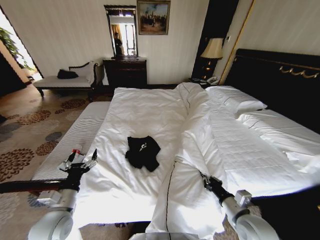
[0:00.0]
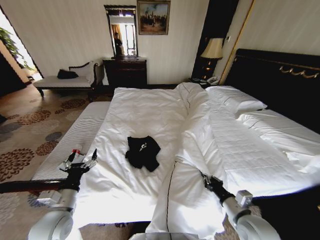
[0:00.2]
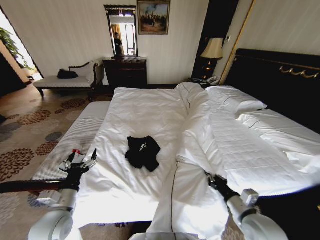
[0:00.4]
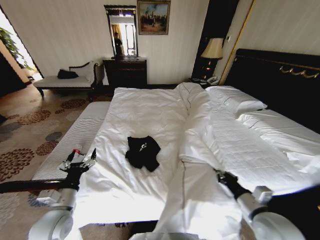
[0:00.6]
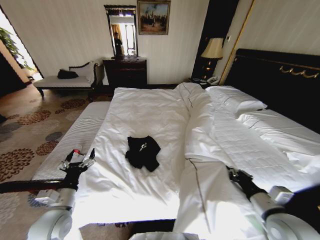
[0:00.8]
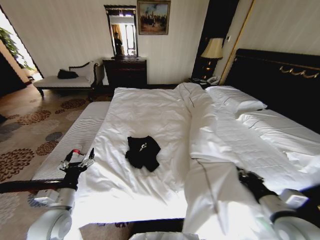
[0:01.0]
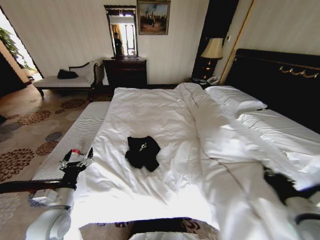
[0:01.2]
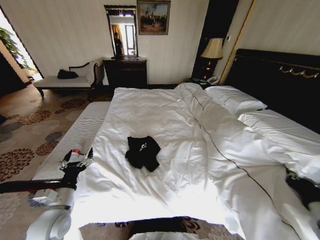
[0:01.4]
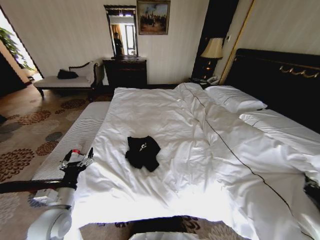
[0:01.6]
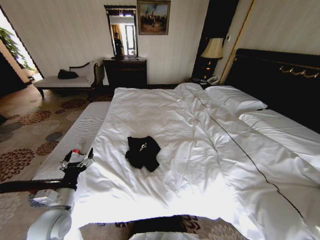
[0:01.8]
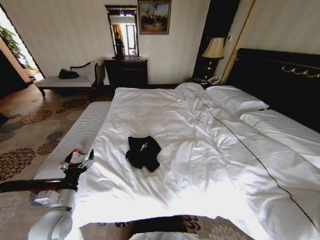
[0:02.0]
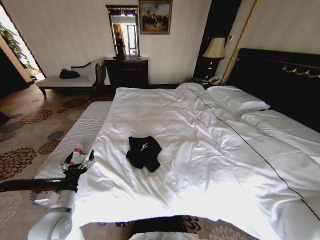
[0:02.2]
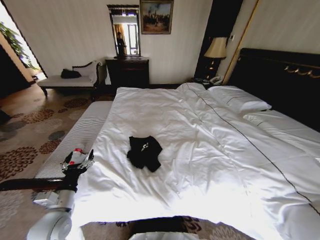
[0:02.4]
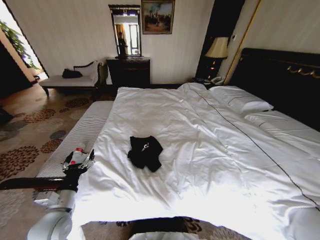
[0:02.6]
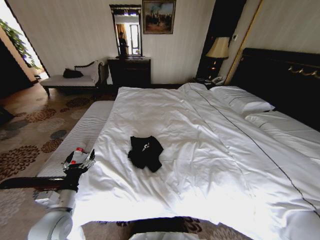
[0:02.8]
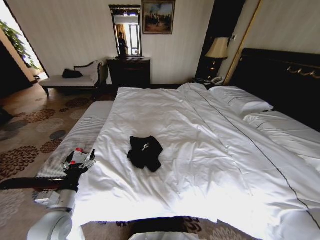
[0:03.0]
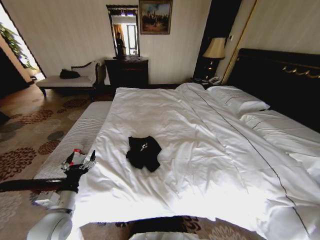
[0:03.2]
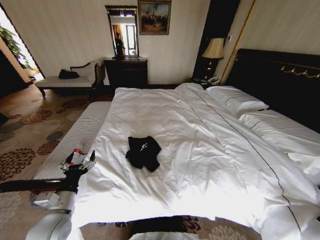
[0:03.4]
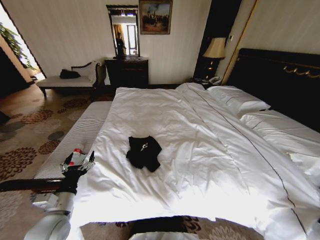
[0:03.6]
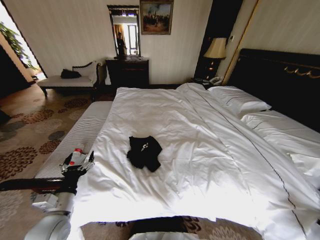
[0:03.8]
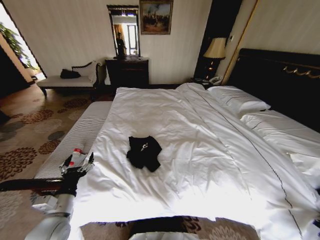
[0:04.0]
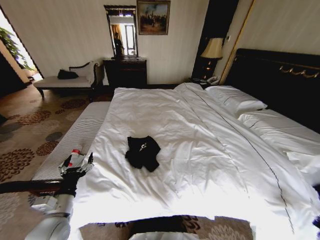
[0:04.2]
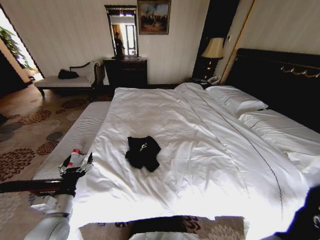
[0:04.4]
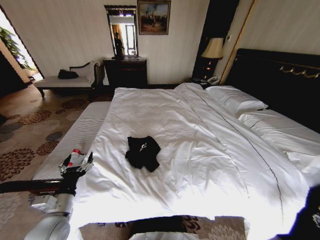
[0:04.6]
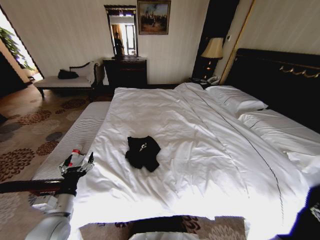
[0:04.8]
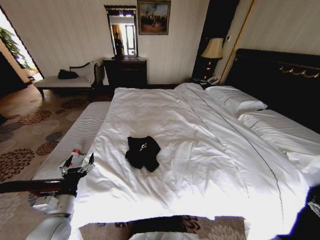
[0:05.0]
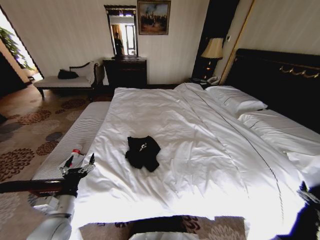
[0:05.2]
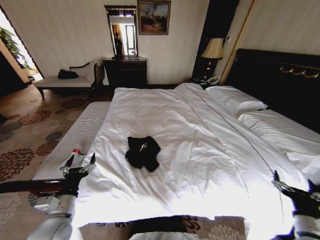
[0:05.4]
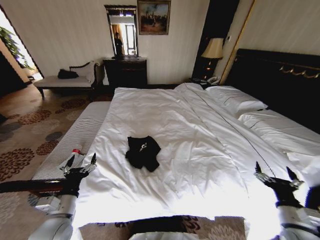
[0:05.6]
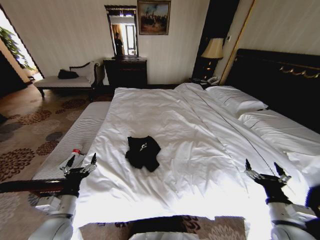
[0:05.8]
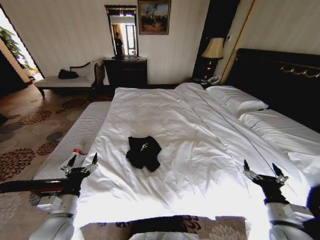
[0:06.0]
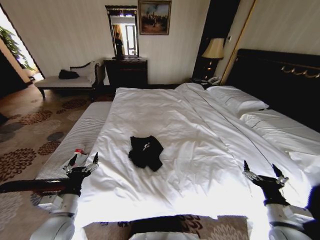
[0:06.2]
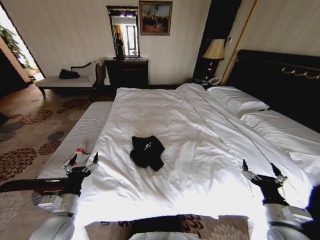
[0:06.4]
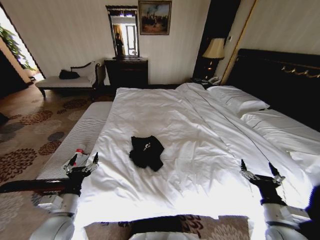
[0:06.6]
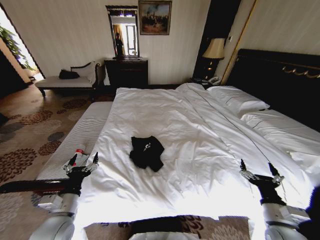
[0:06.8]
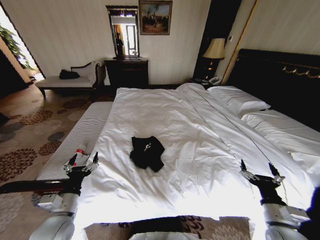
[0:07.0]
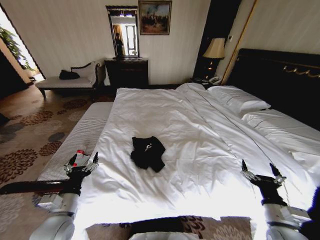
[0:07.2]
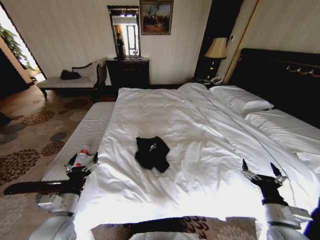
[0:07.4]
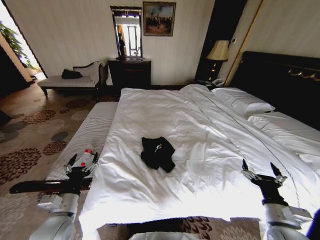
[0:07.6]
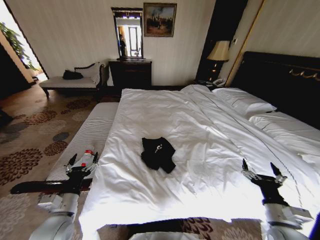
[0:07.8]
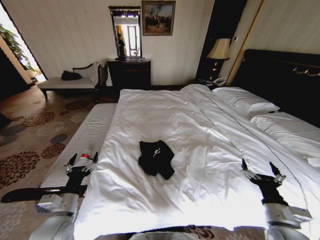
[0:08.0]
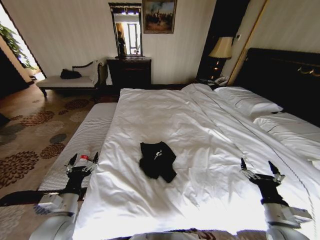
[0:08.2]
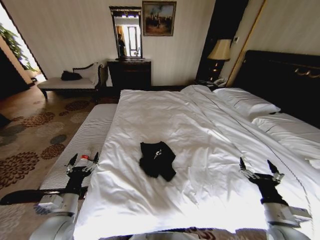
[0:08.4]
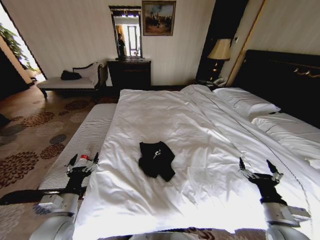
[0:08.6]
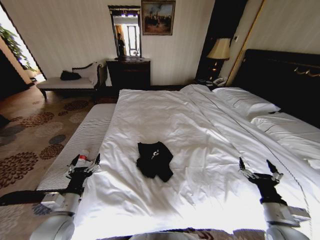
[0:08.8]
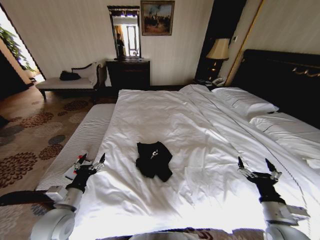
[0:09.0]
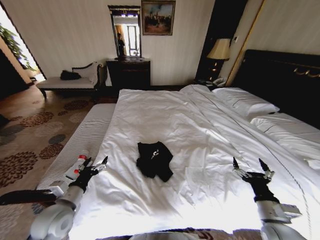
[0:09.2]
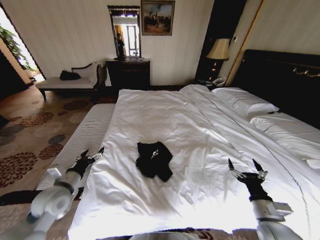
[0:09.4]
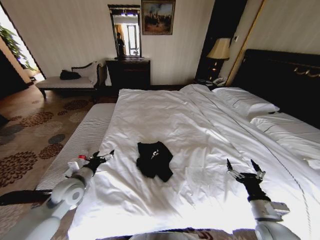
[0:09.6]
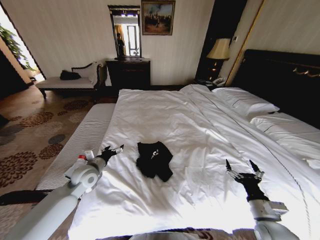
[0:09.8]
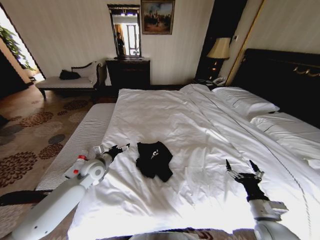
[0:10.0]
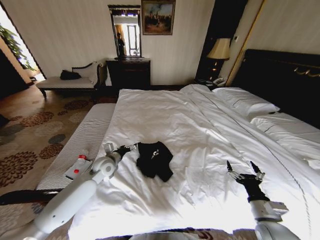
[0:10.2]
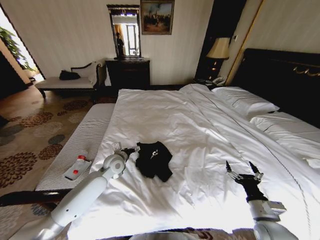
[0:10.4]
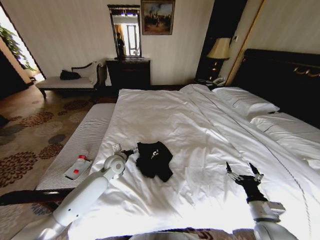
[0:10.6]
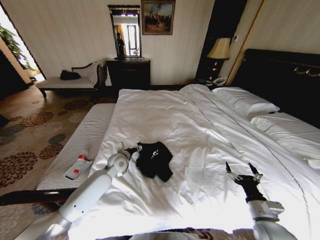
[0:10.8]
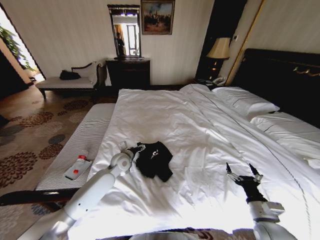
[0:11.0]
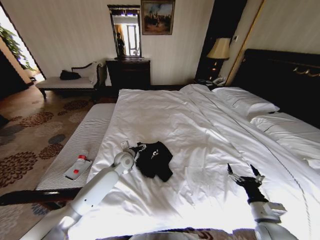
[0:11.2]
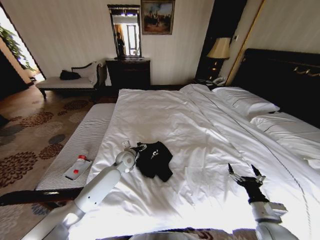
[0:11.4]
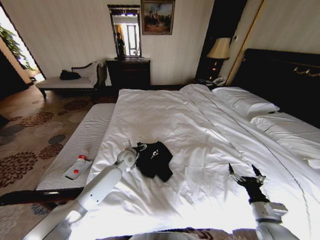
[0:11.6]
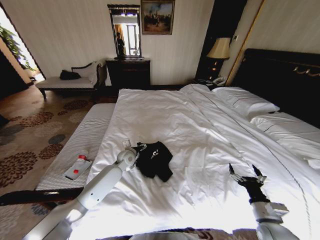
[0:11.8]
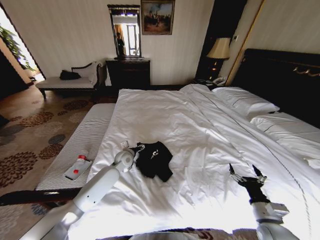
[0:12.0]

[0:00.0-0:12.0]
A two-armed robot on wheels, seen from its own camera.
Task of the whole recording: Fold the clothes on the bed.
0:00.0 to 0:01.6: The right gripper travels to the right by approximately 20 cm.
0:01.6 to 0:03.0: The right gripper moves to the right and downward, some 20 cm.
0:03.0 to 0:04.4: The right gripper travels downward by about 10 cm, and opens up.
0:04.4 to 0:06.0: The right gripper moves to the left and upward, roughly 35 cm, and opens up.
0:09.0 to 0:10.4: The left gripper goes roughly 25 cm forward and to the right.
0:10.4 to 0:12.0: The left gripper travels forward by some 5 cm.

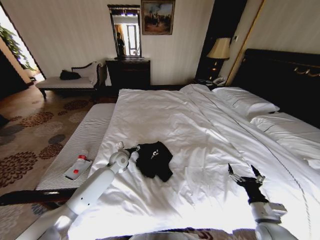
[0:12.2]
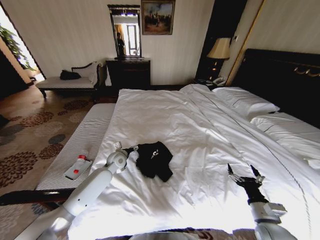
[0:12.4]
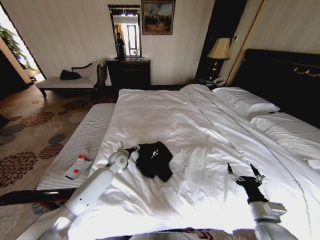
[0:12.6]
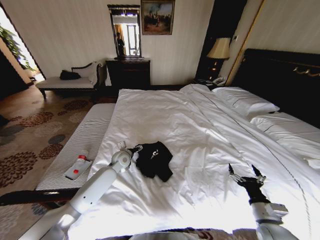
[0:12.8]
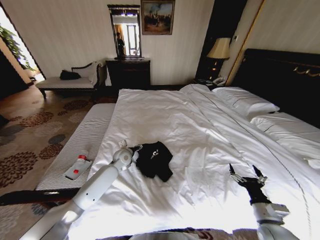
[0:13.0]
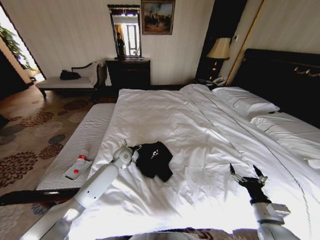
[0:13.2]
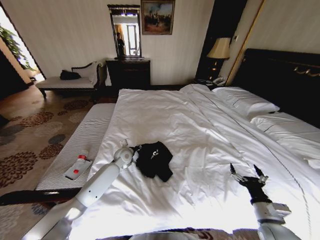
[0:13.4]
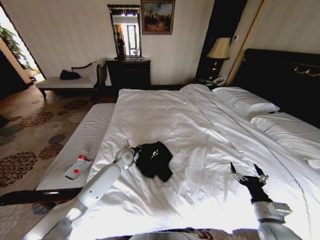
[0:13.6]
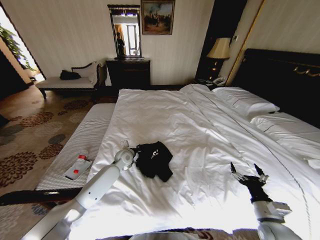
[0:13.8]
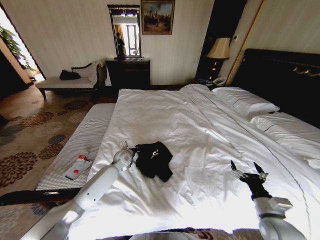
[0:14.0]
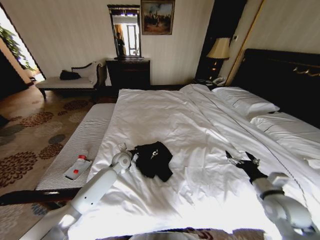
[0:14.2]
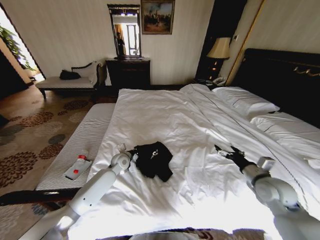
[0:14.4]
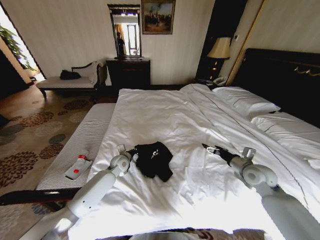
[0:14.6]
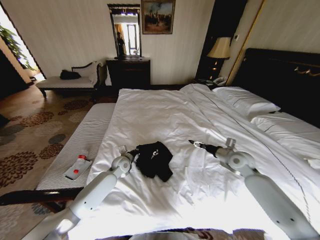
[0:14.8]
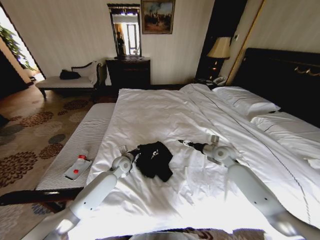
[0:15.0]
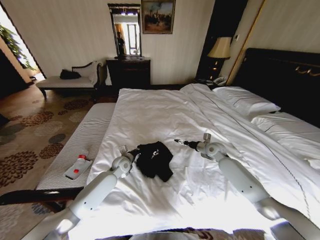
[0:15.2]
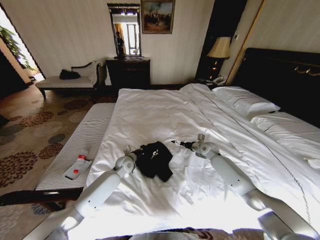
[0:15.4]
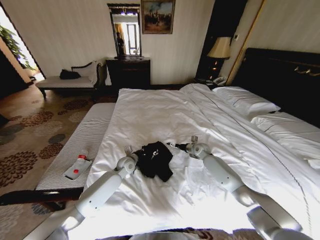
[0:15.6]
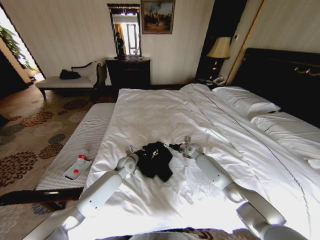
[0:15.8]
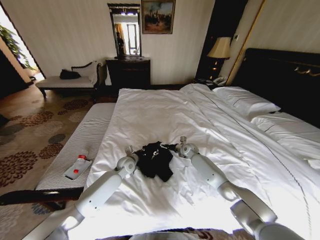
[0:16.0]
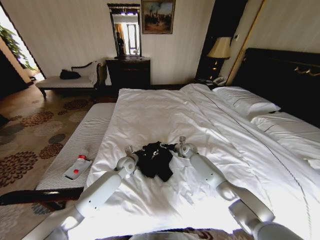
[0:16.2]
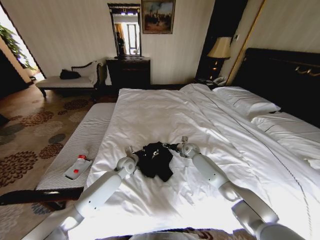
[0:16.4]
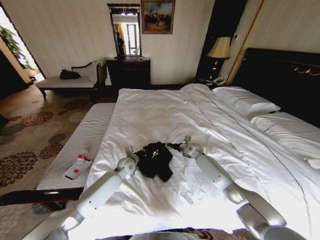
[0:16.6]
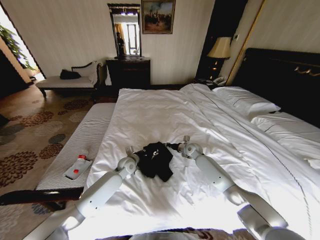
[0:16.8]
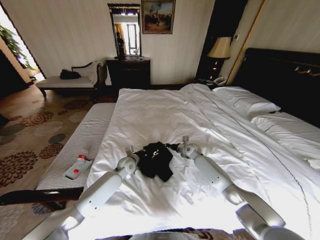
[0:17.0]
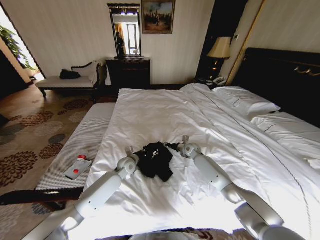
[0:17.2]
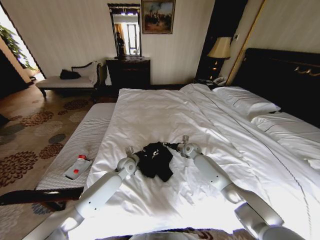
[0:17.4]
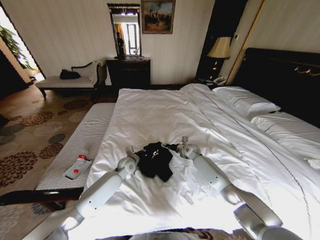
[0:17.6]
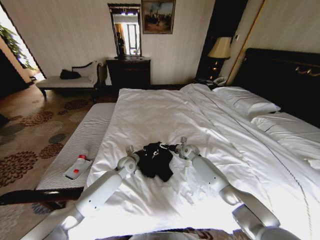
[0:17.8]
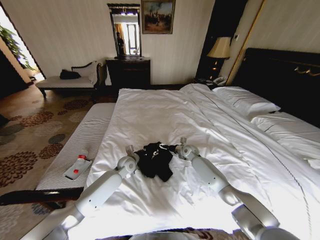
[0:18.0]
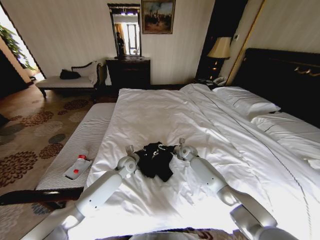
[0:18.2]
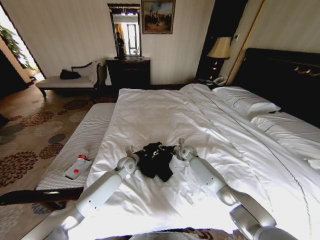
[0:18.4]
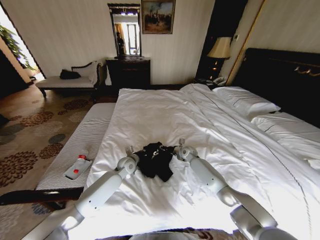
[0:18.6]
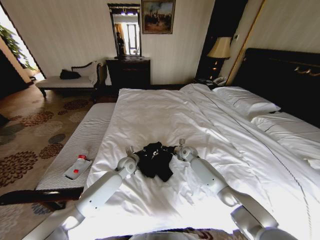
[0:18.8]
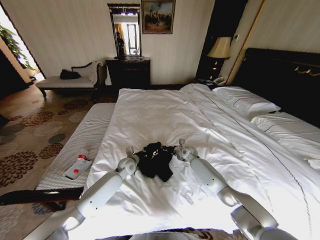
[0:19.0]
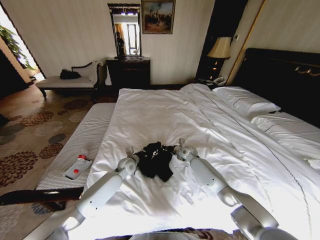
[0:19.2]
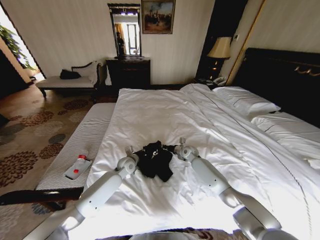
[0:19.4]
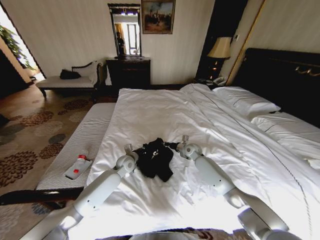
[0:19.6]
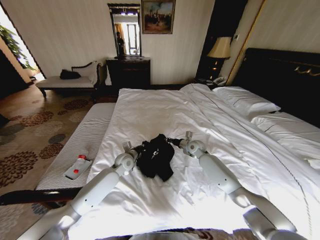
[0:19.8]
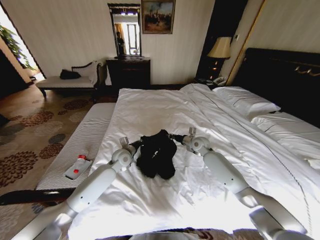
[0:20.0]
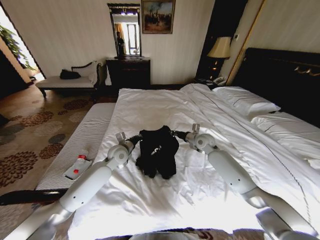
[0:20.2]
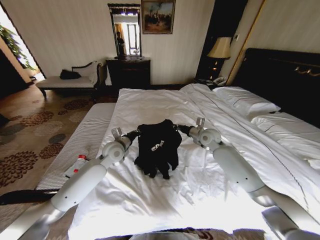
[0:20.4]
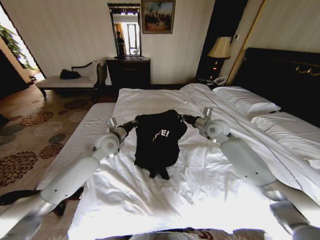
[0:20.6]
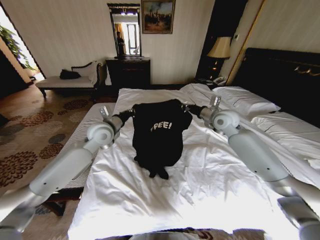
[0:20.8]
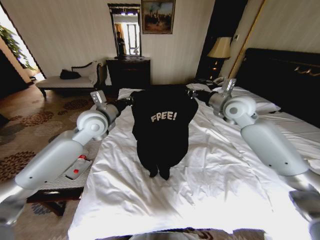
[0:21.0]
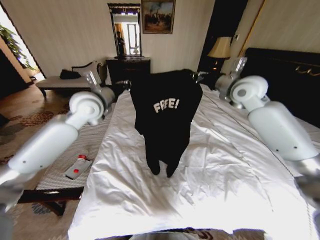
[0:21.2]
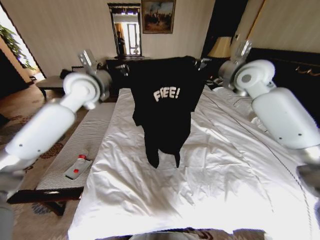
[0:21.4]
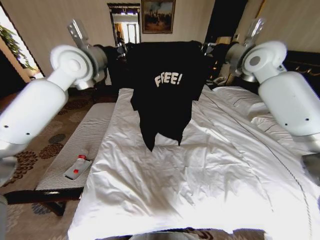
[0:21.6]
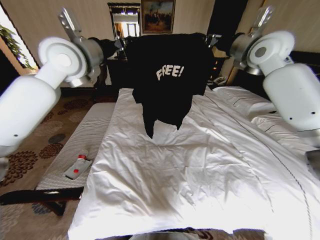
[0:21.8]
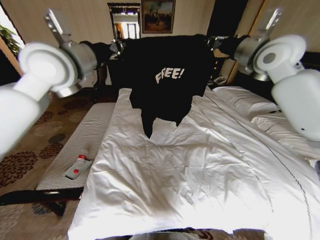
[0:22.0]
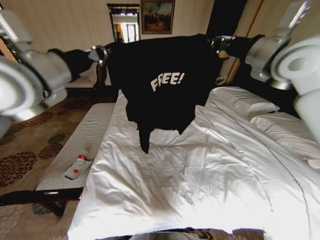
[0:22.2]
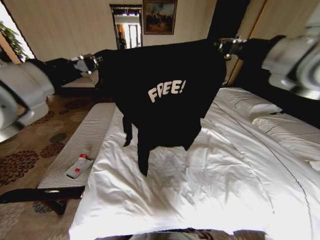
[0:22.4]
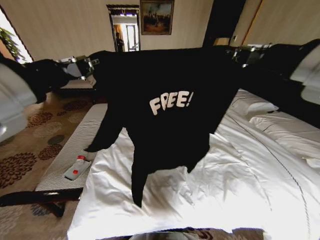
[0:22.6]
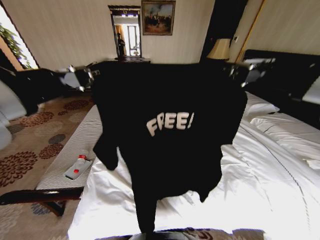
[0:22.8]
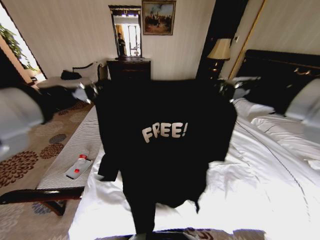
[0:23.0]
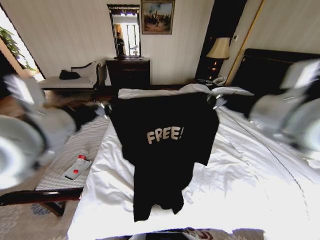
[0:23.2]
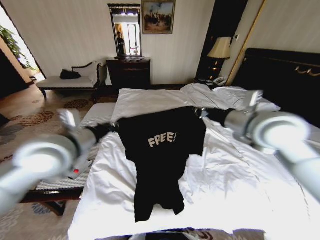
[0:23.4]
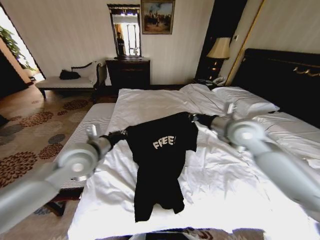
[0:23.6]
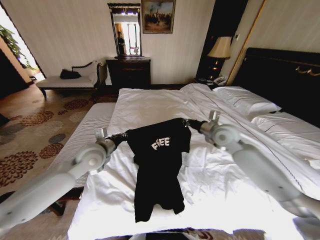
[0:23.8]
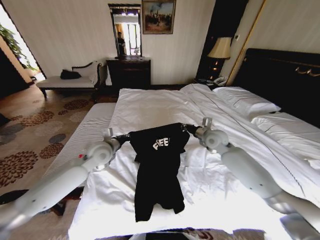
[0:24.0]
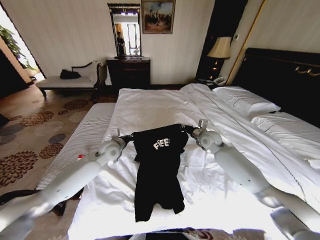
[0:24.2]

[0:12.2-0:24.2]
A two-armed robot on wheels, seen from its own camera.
Task of the whole recording: Fold the clothes on the bed.
0:12.2 to 0:13.8: The left gripper closes.
0:13.8 to 0:15.2: The right gripper shifts some 35 cm forward.
0:15.2 to 0:16.6: The right gripper goes roughly 10 cm to the left and downward, and closes its fingers.
0:16.6 to 0:18.2: The right gripper opens up.
0:18.2 to 0:19.8: The right gripper goes about 5 cm upward, and closes.
0:19.8 to 0:21.2: Both grippers move upward, about 35 cm.
0:21.2 to 0:22.6: The grippers both shift backward and upward by some 25 cm.
0:22.6 to 0:24.2: Both grippers travel together downward and forward, roughly 40 cm.
